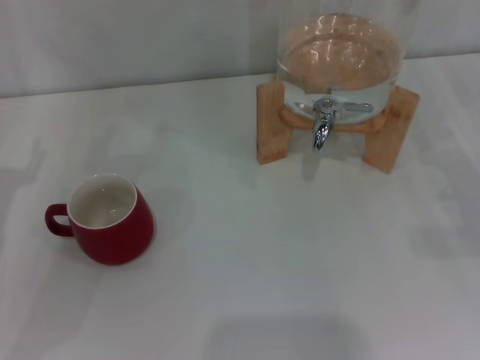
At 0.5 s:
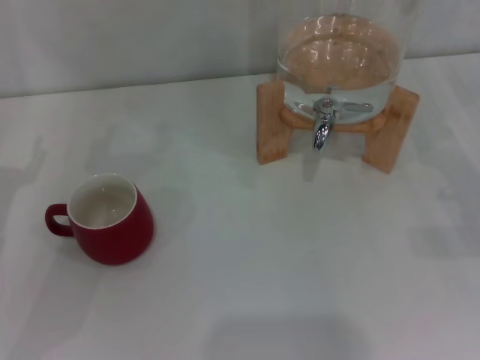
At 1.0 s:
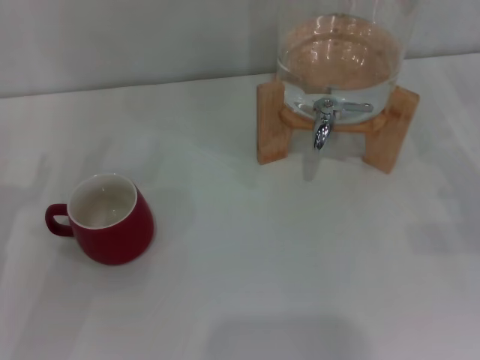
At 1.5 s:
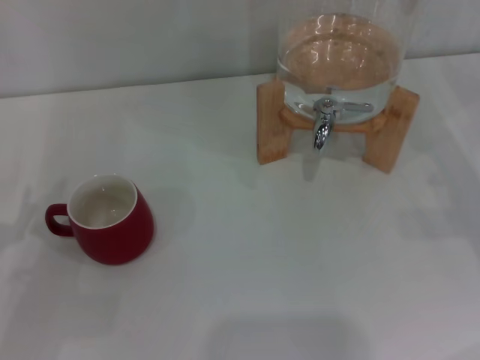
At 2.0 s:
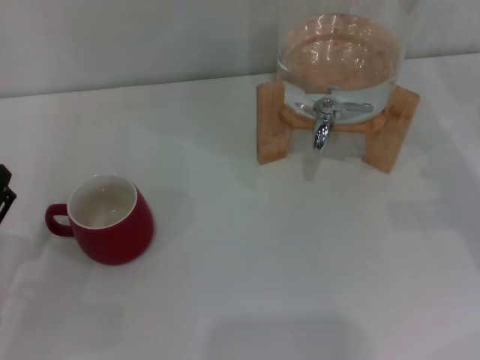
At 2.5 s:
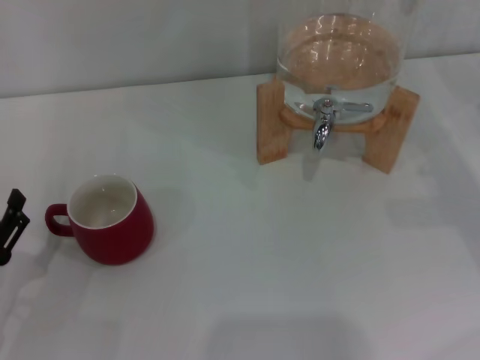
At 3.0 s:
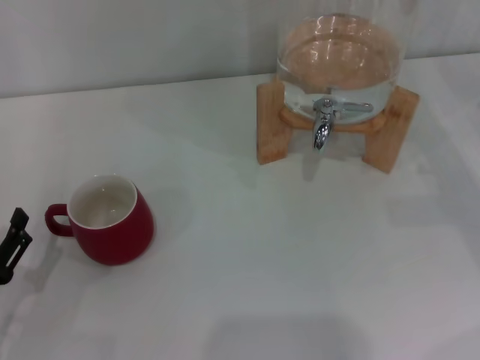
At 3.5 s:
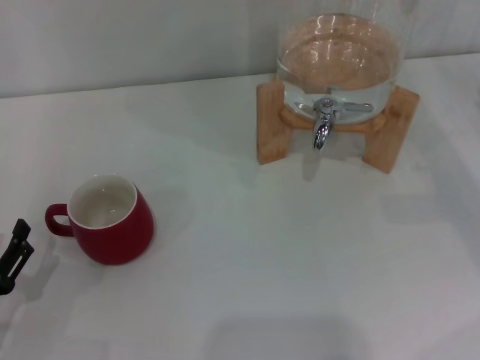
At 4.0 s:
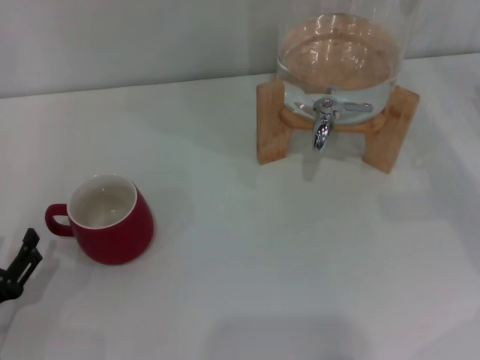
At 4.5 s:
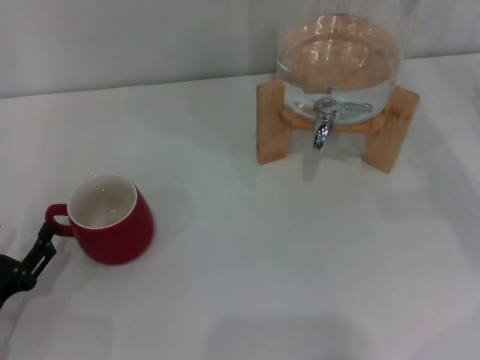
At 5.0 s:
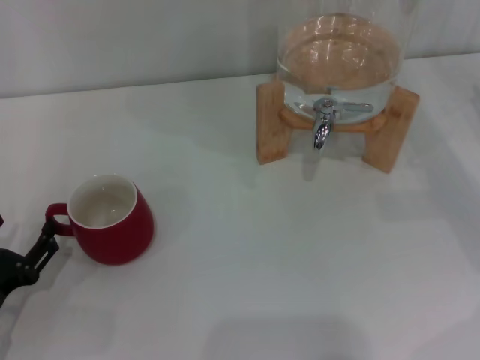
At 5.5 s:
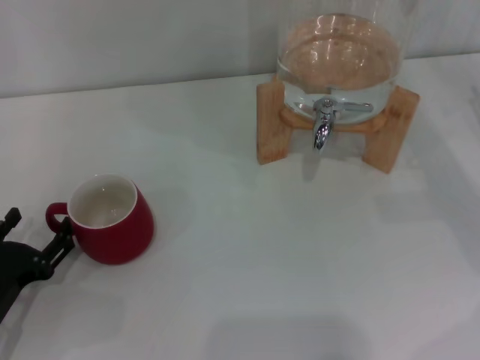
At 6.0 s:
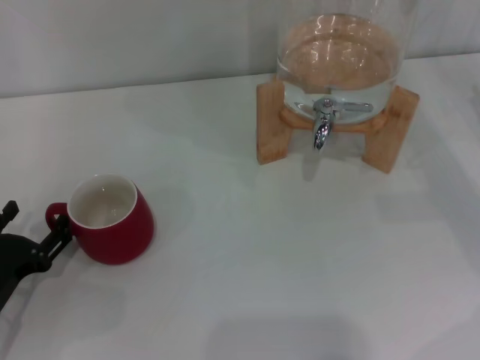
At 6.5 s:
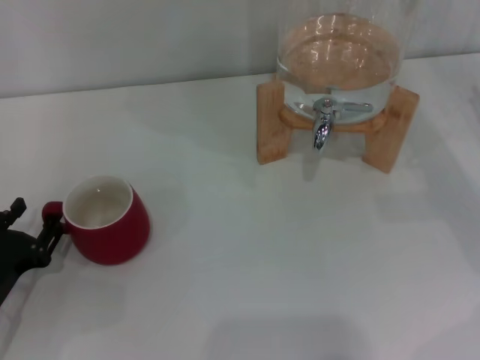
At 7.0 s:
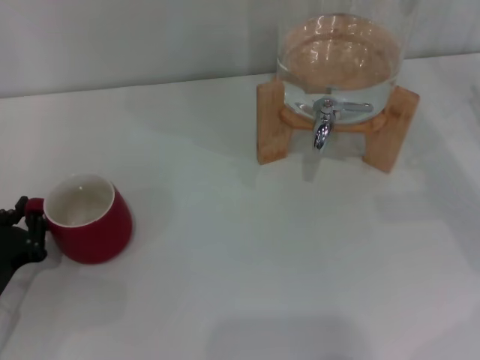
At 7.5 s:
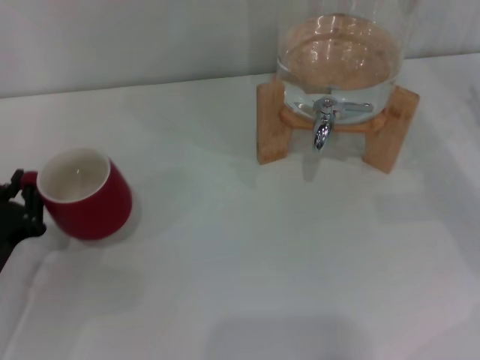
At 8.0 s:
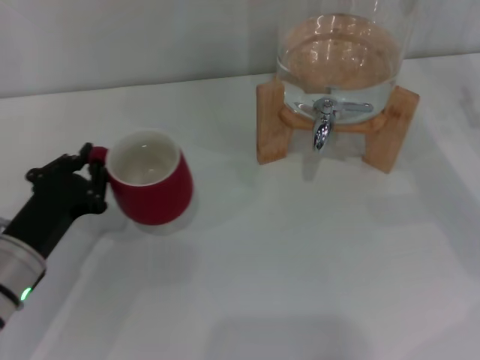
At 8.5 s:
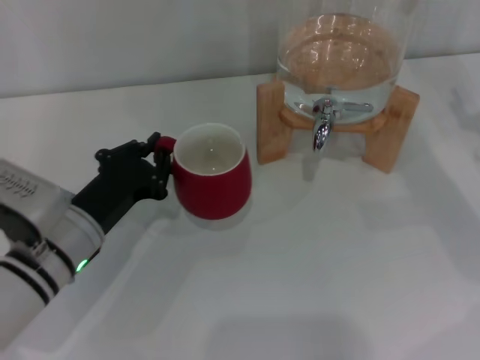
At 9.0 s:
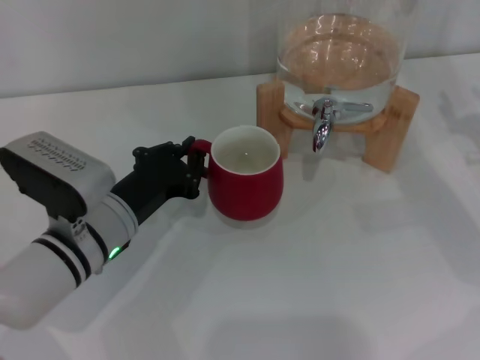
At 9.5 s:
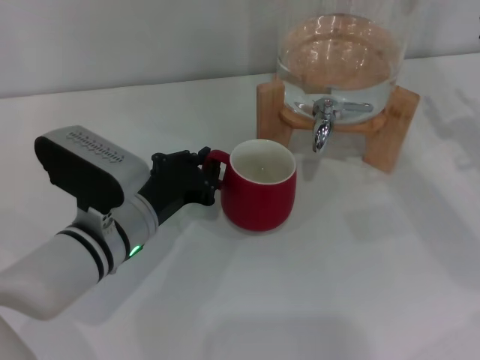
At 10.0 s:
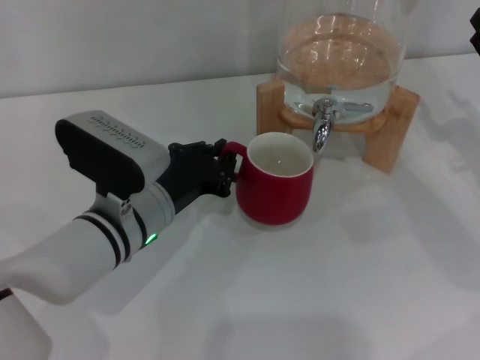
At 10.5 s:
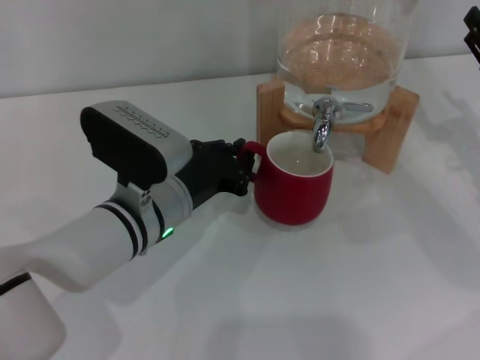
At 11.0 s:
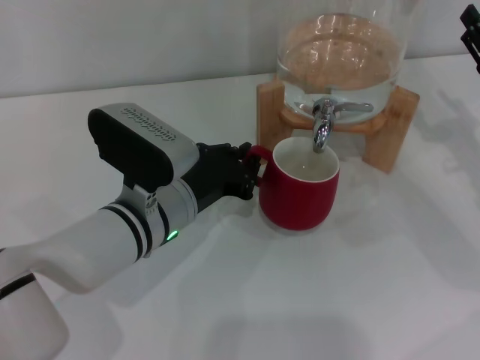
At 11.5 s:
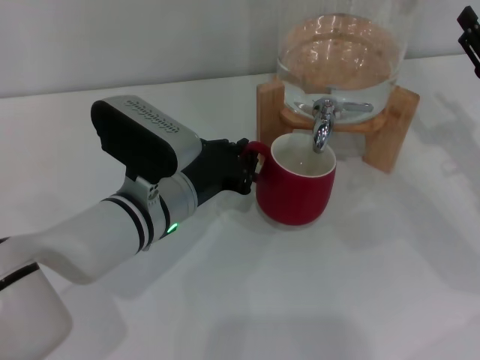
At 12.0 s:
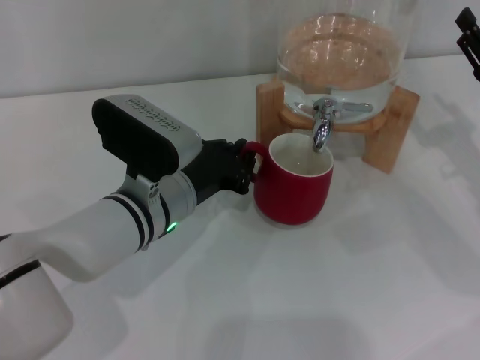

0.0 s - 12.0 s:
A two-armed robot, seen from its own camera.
Task of the whole recording: the left gripper pick up the red cup and place it horizontally under the faucet, the right gripper turn on the faucet to fill the cup, and then turn off the faucet.
2.0 s - 6.0 s: There are only small adjustments of the grippers.
6.0 s - 8.0 s: The left gripper moves to the right, some 5 cm, and closes up.
8.0 s - 10.0 s: The left gripper heads to the right, covering roughly 10 cm.
10.0 s - 12.0 s: The grippers stay close to where they were, moving slightly.

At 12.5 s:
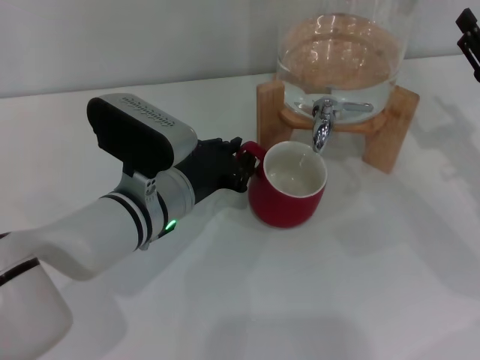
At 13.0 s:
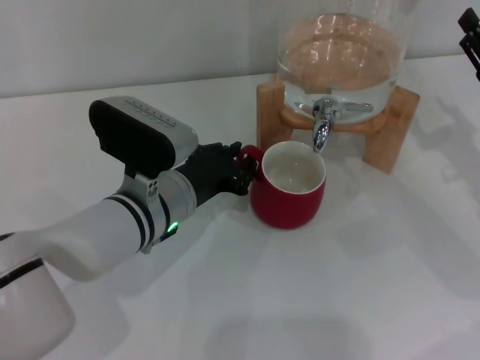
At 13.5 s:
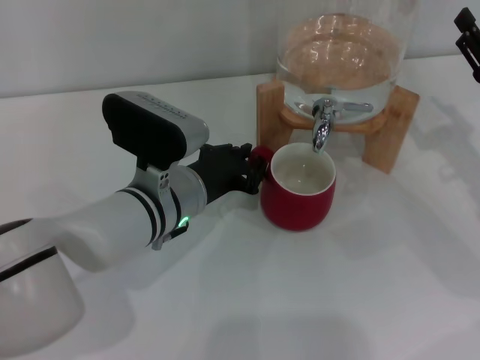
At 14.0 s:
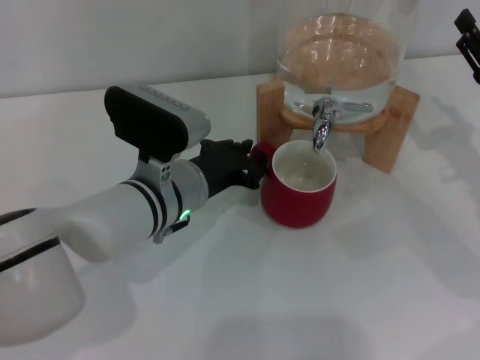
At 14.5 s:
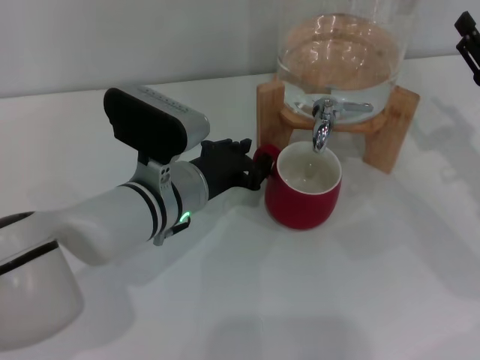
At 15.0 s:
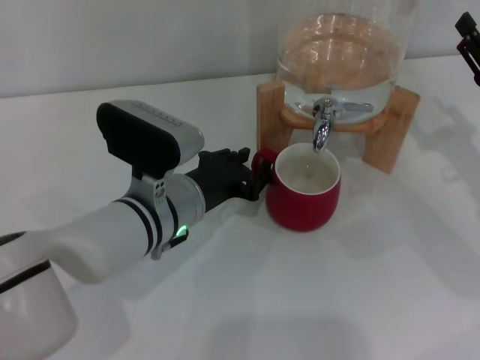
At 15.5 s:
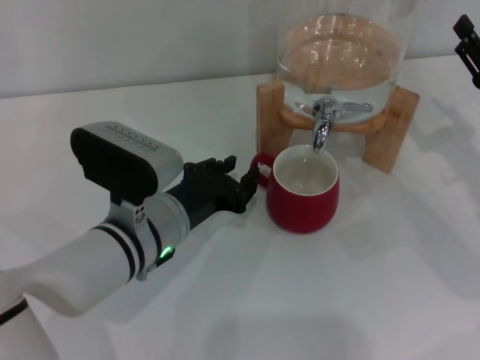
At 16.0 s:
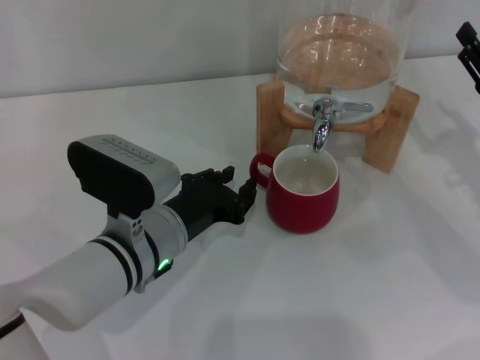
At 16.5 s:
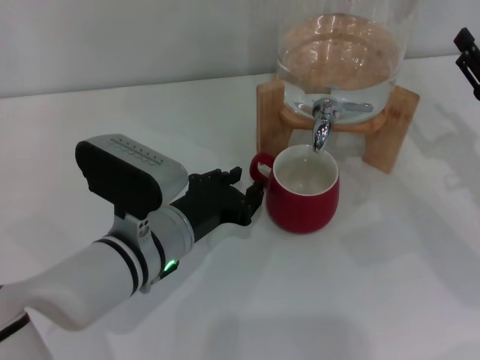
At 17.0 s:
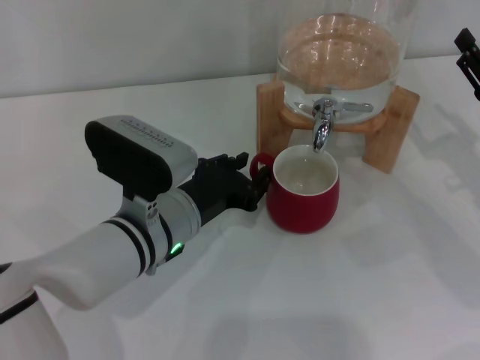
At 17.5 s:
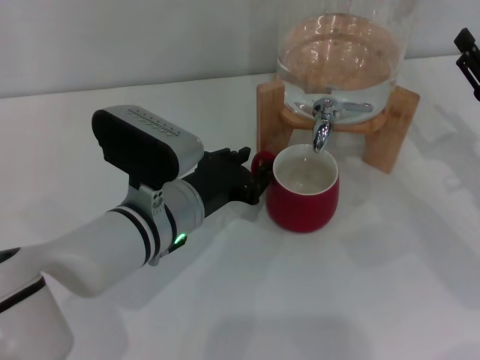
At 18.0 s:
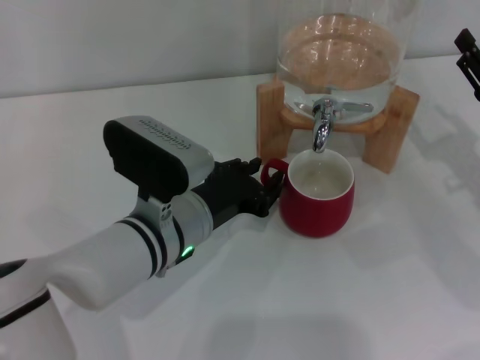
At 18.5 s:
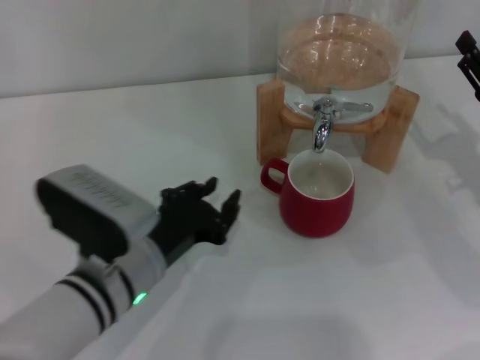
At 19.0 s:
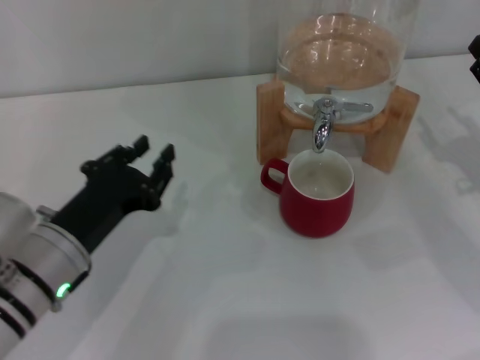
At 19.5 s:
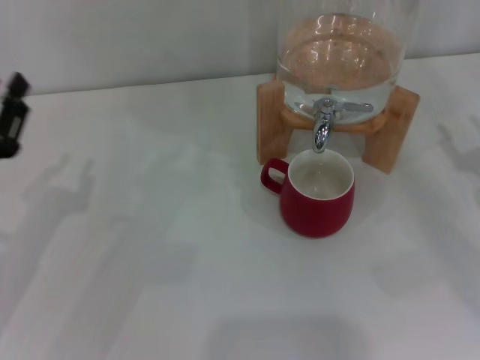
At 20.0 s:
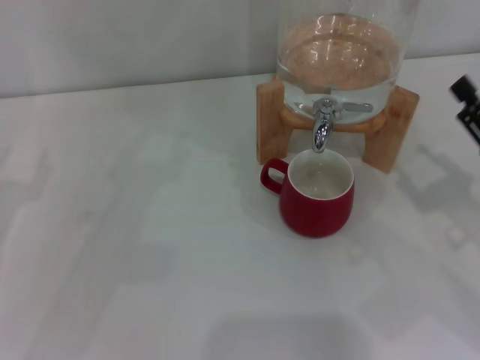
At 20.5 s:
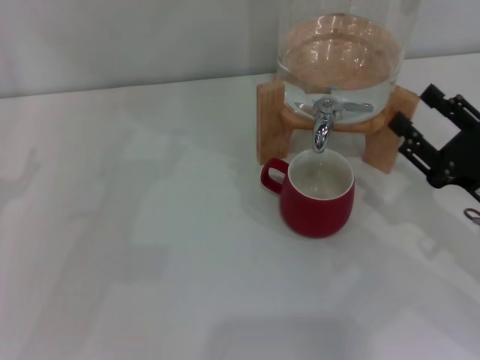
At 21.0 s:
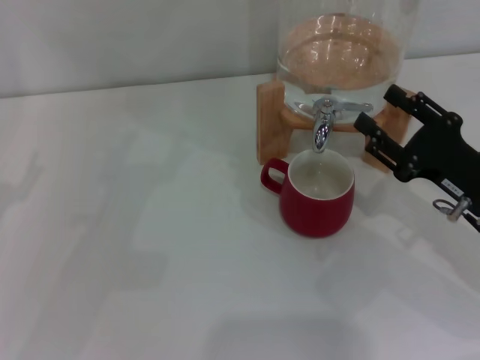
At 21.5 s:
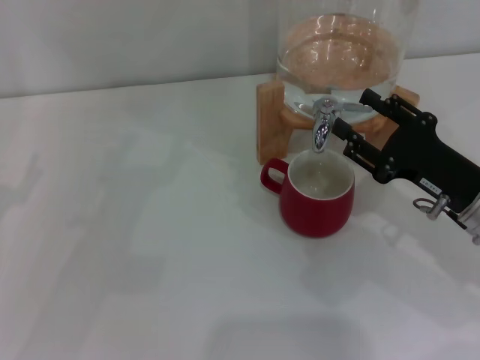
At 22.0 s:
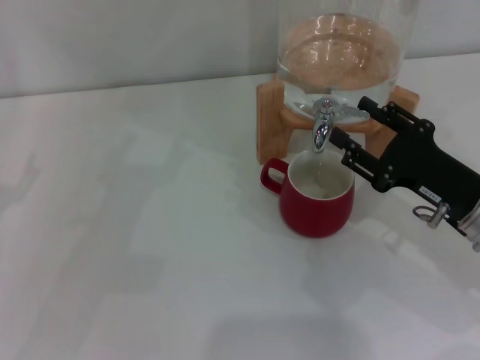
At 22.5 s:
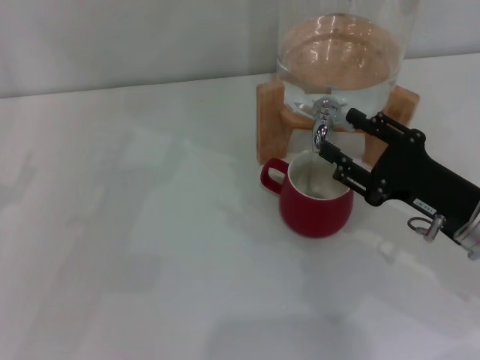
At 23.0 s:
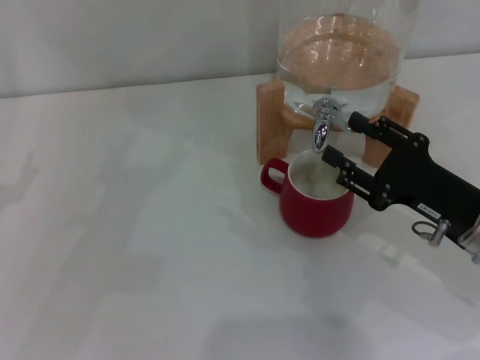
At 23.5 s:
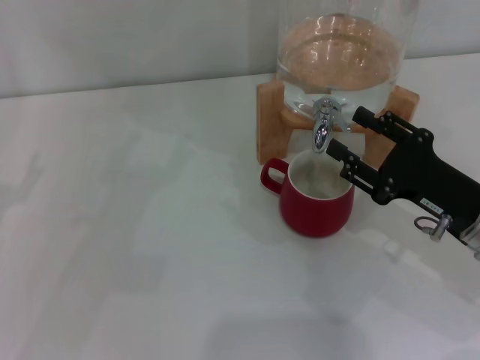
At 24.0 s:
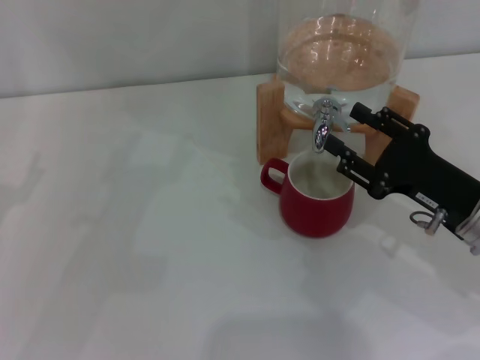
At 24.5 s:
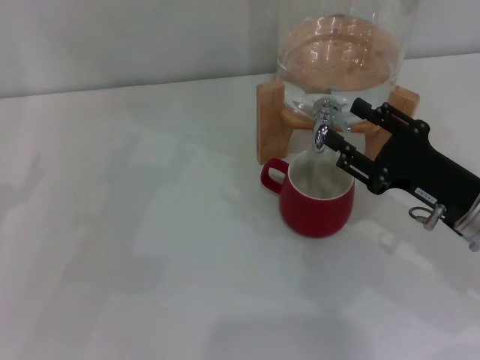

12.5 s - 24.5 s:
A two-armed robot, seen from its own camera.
Task of the whole recording: the left gripper pick up the red cup and place it horizontally under the faucet, the right gripper turn on the faucet to fill the cup, and then turn off the faucet.
Step, 12.5 s - 15.5 s: Move the cup beneath the water dispenser nozzle with the left gripper.
Step, 16.0 s - 23.0 s: Open the dispenser valve and fill the cup with water with the right gripper.
12.5 s - 14.5 s: There are only small adjustments of the grippers.
14.5 s - 16.5 s: The left gripper ends up about 5 cm from where it was.
16.5 s - 18.5 s: The grippers make only small movements.
18.5 s - 20.5 s: The left gripper travels to the left by roughly 20 cm, and opens up, while the right gripper heads backward, covering approximately 5 cm.
20.5 s - 22.5 s: The grippers move only a little.
22.5 s - 24.5 s: The two grippers keep their place.

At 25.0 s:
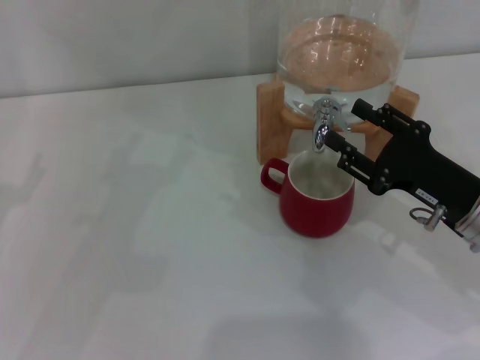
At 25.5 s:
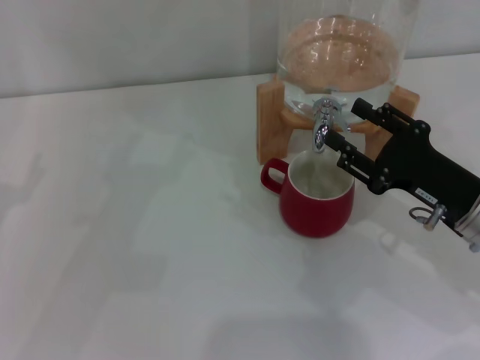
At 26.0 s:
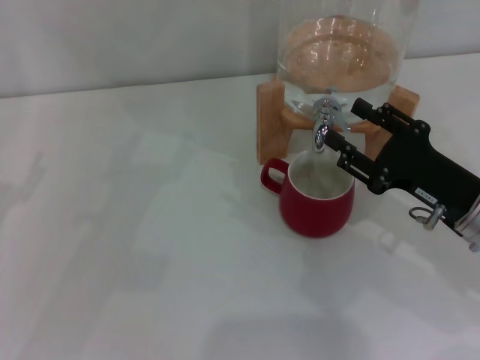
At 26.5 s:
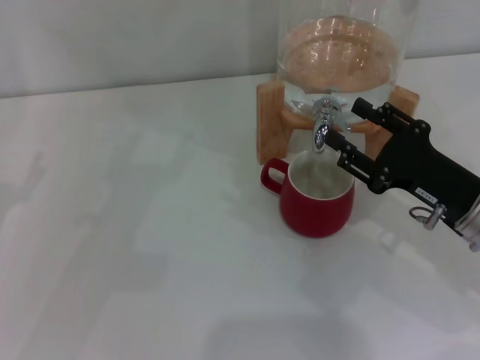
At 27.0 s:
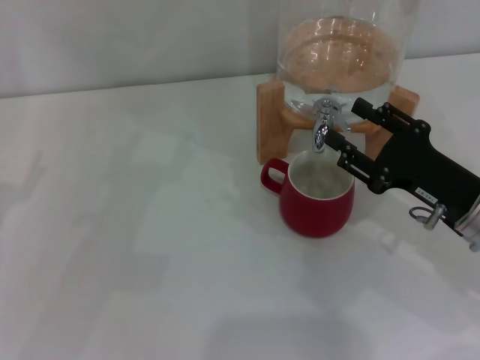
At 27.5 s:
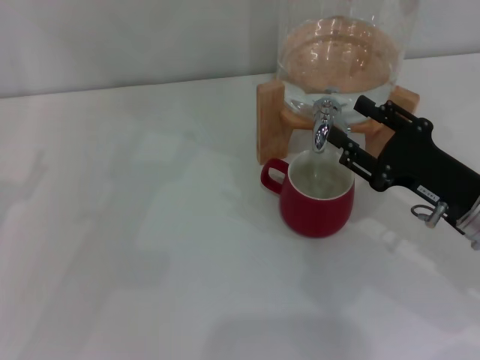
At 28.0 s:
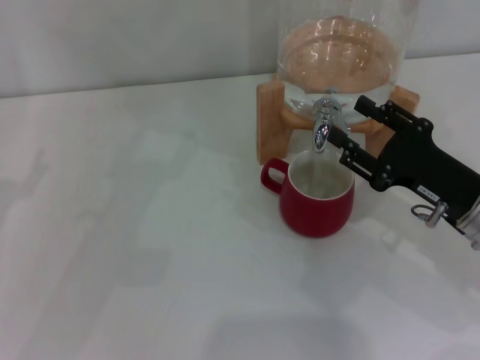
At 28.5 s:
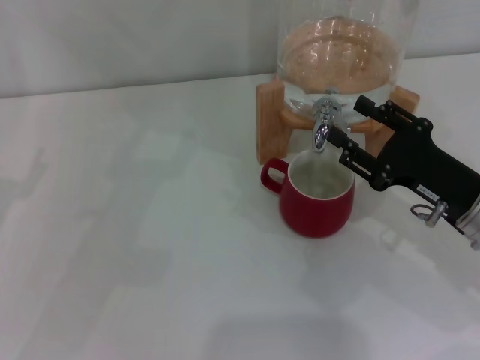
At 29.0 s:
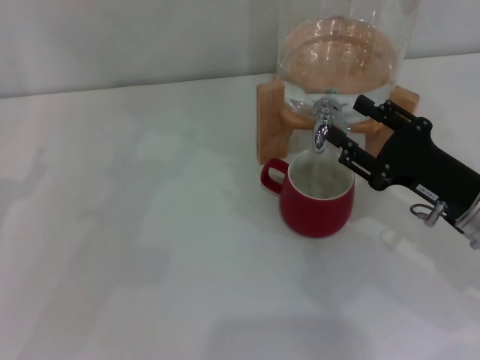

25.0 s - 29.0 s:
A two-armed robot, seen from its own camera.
Task of the whole recording: the left gripper pick up the red cup and place it horizontally under the faucet, the right gripper turn on the faucet to fill the cup, and then turn off the faucet.
25.0 s - 29.0 s: Neither gripper changes place.
